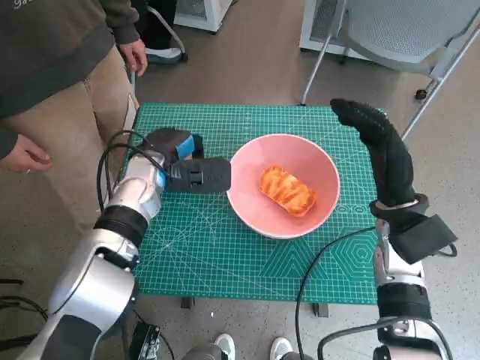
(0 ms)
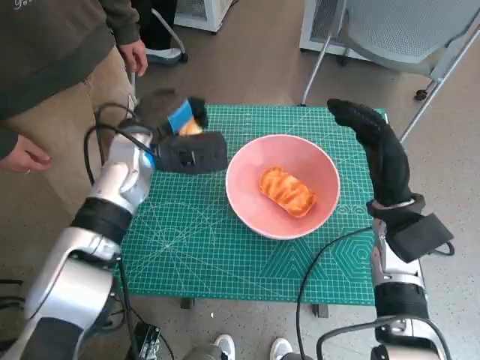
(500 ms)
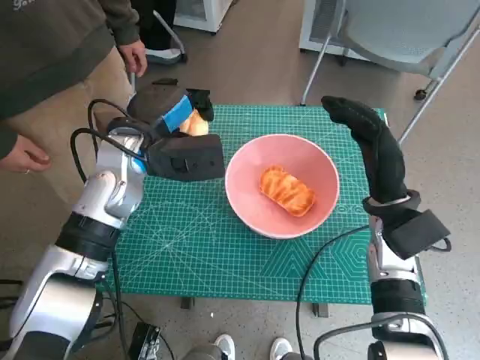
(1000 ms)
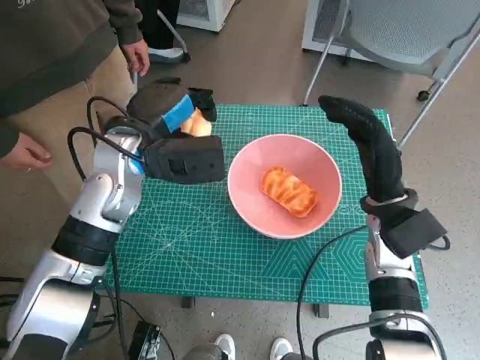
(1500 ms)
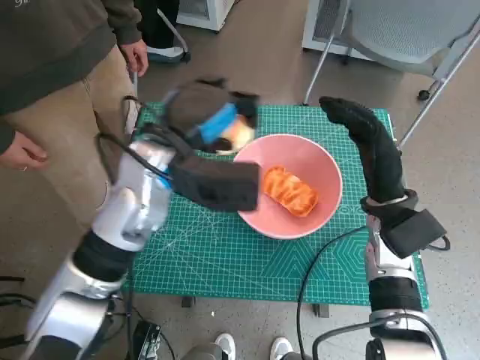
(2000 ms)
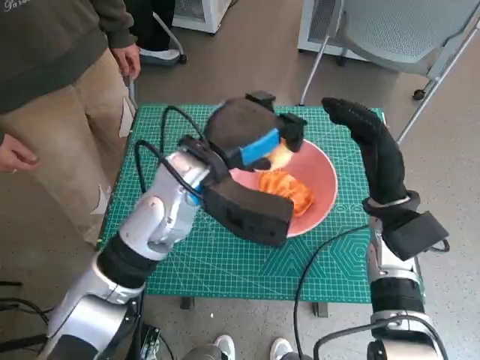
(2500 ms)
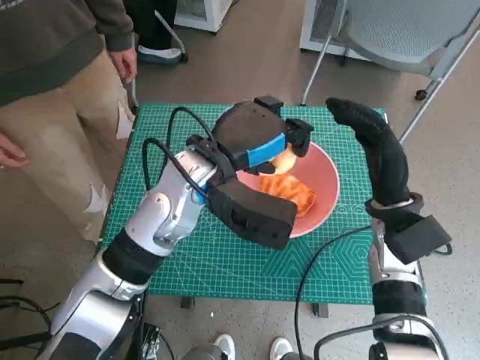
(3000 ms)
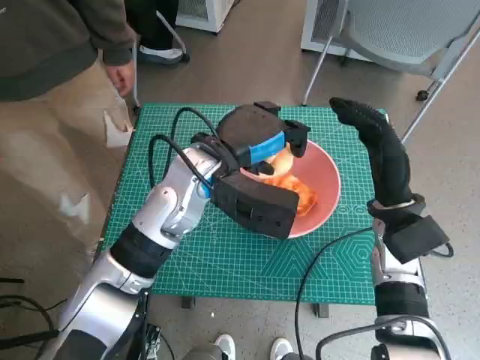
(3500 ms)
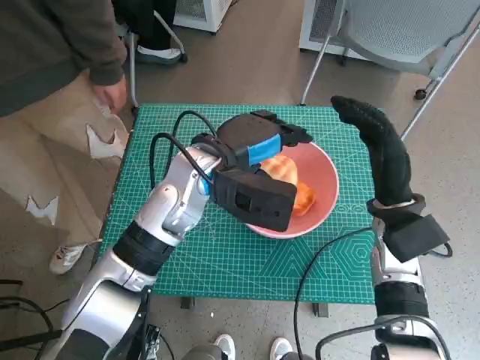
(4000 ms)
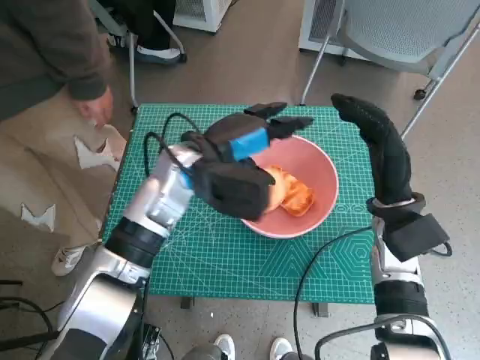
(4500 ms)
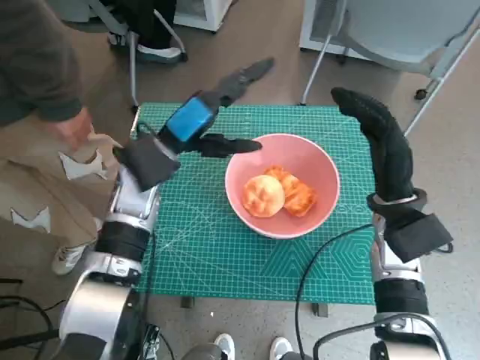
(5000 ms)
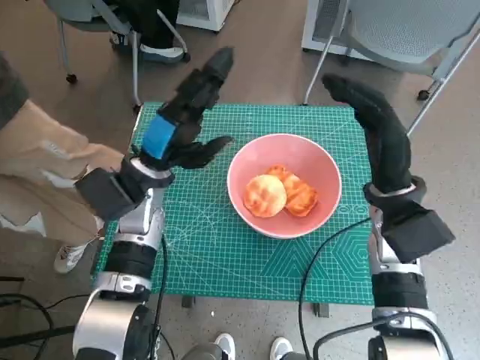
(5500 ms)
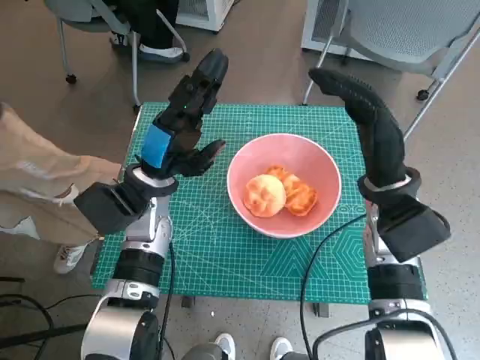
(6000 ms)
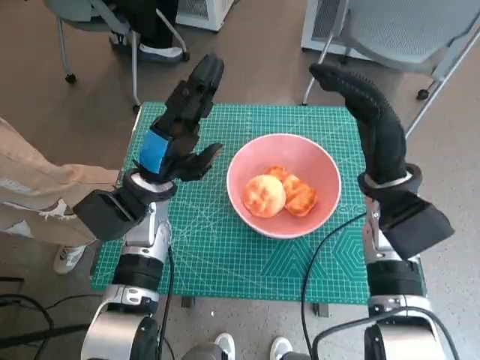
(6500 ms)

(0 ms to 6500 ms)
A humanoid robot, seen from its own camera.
Step, 0 ms - 4000 ms: Place the round bread in pink bowl with left hand.
0 ms - 2000 ms: The left hand goes about 10 cm upward.
2000 ms - 4500 ms: The left hand shifts by some 5 cm.
4500 ms - 6500 ms: The left hand is displaced to the left and downward by some 10 cm.

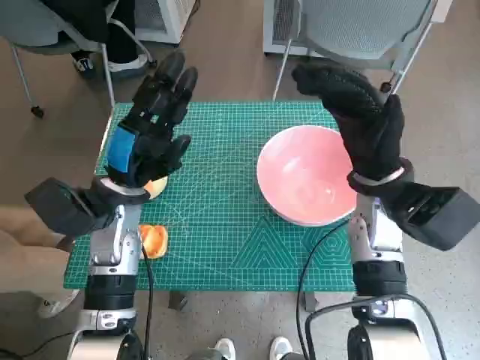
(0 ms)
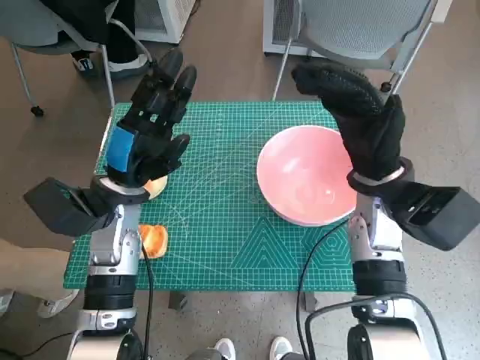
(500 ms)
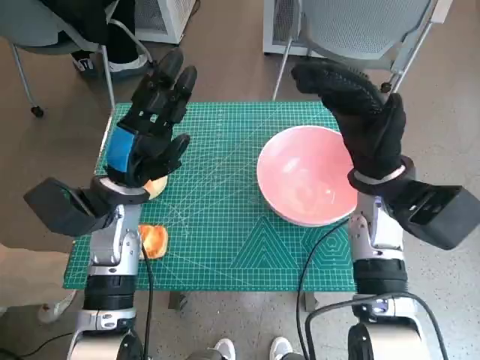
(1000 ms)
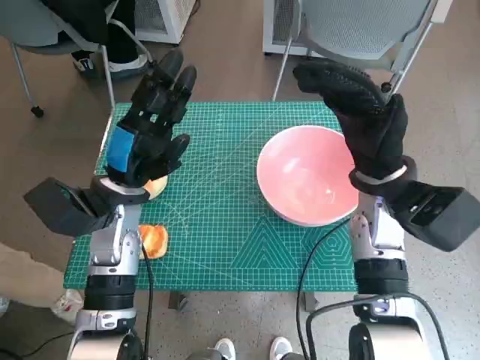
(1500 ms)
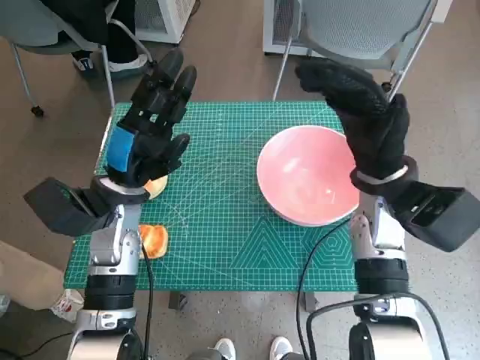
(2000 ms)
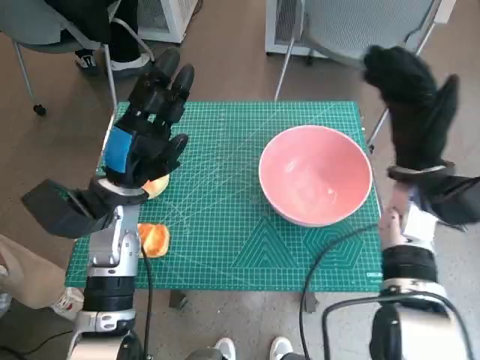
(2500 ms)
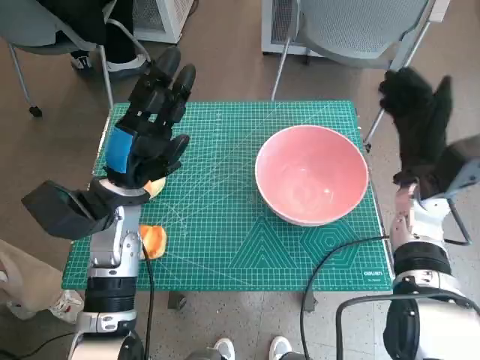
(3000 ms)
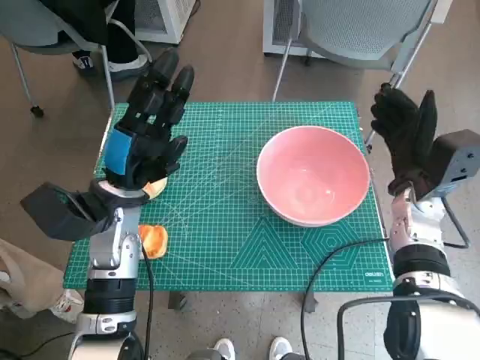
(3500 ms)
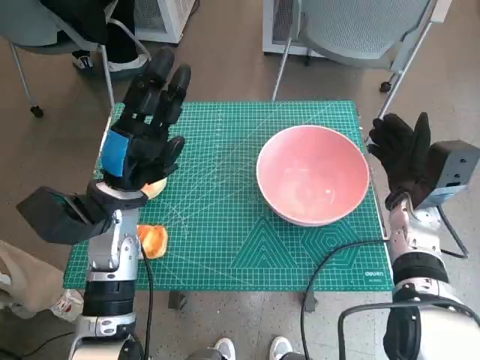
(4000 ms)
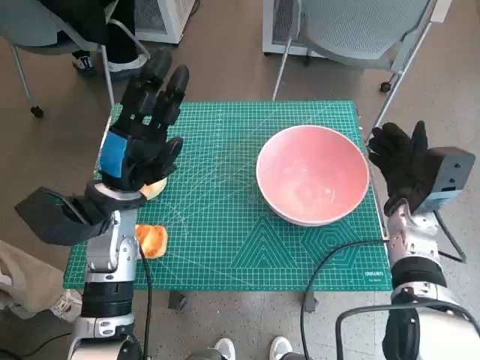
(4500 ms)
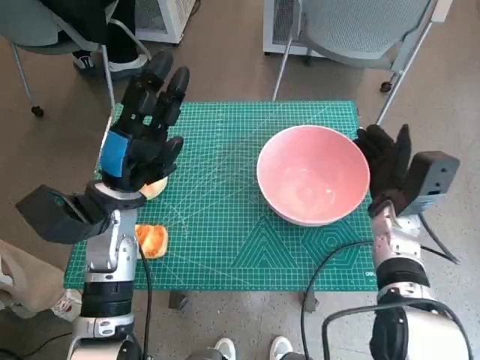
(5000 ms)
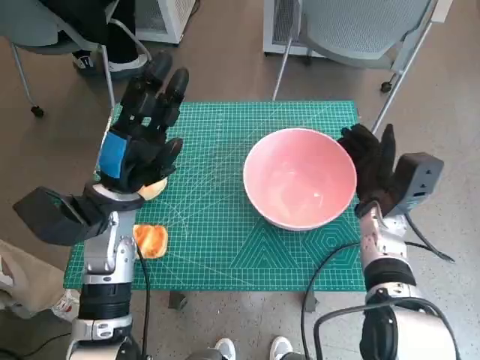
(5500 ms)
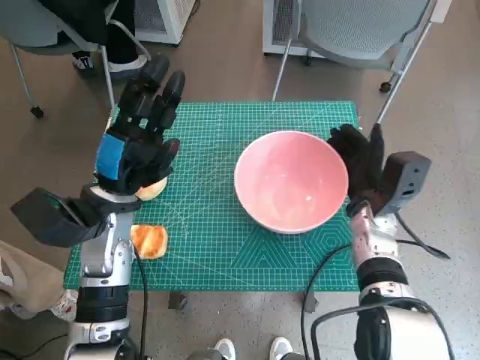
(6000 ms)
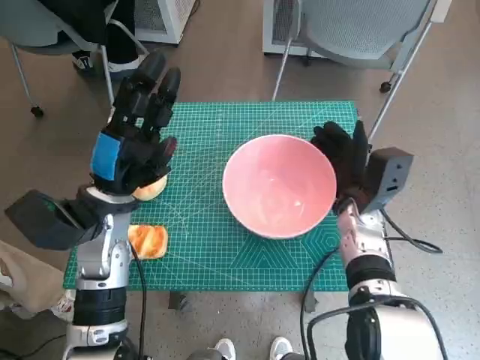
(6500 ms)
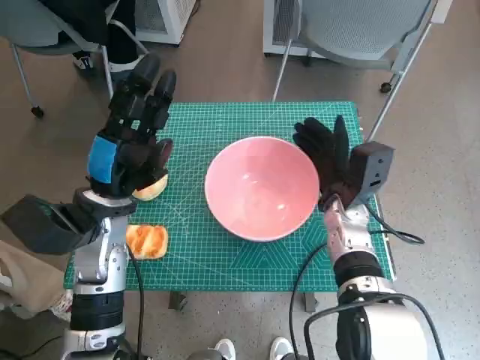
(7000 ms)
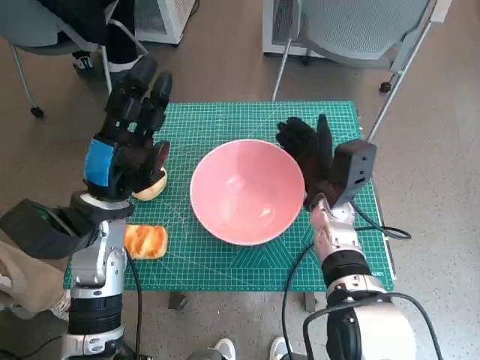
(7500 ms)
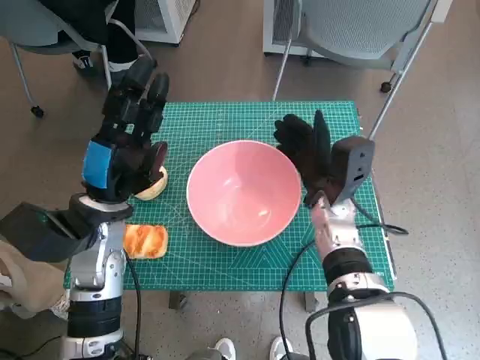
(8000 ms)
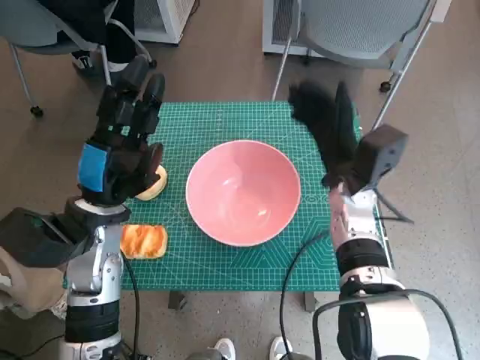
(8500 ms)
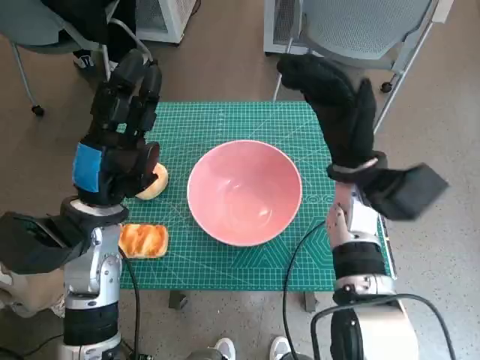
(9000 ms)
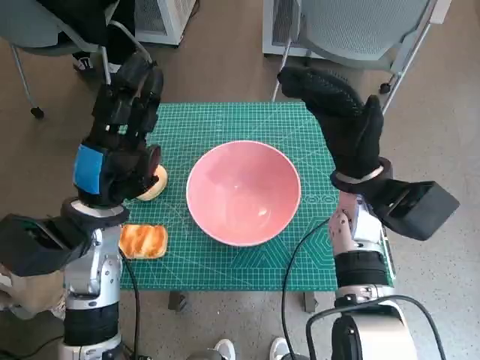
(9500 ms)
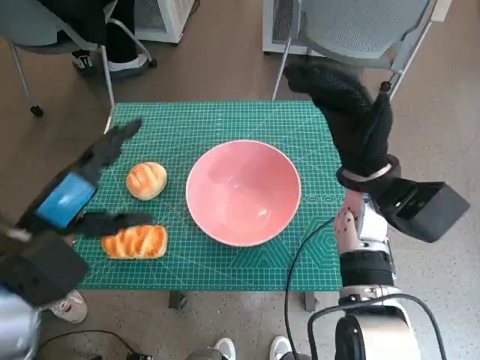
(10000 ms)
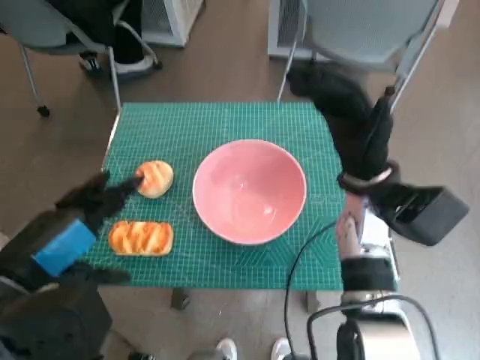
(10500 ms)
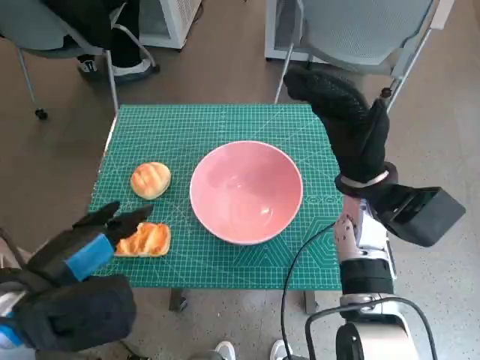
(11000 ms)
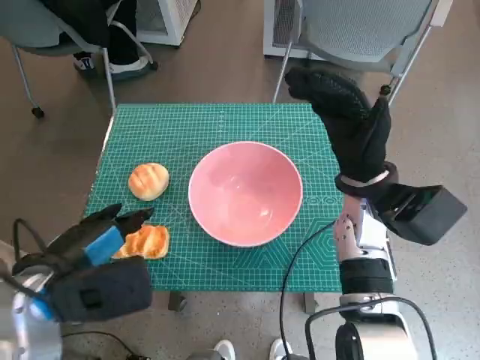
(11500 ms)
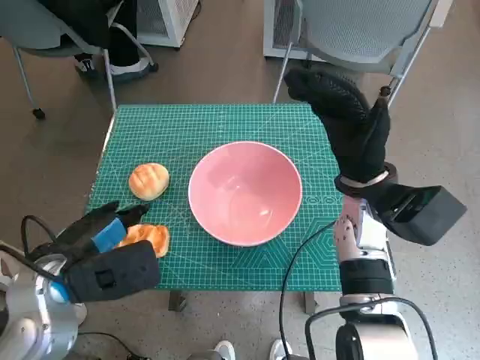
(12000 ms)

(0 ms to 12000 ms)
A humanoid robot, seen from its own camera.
Step, 0 ms - 8000 ms: Move the pink bowl to the center of table with right hand.
2000 ms - 4000 ms: The right hand goes roughly 10 cm downward and to the right.
4000 ms - 6000 ms: The right hand heads to the left, covering some 5 cm.
6000 ms - 8000 ms: The right hand goes approximately 5 cm to the left.
8000 ms - 10000 ms: The left hand shifts roughly 10 cm backward and upward; the right hand travels upward by about 10 cm.

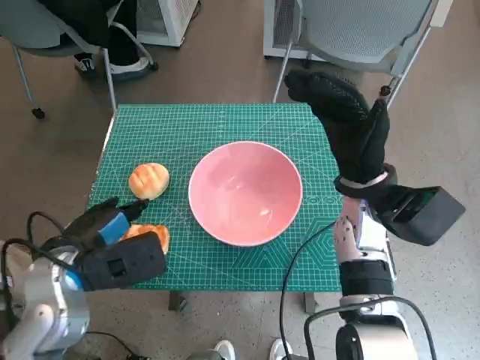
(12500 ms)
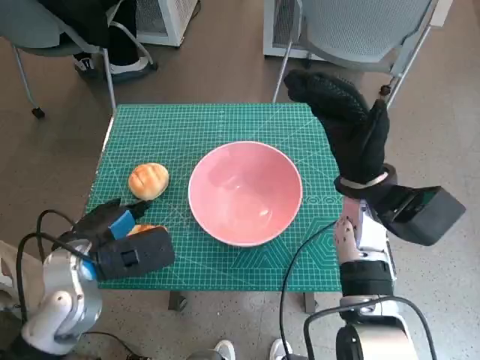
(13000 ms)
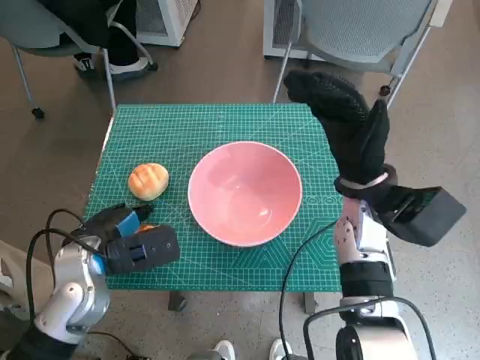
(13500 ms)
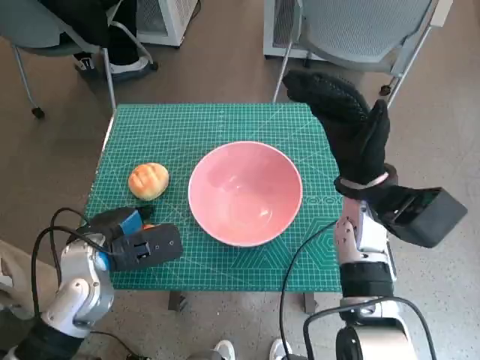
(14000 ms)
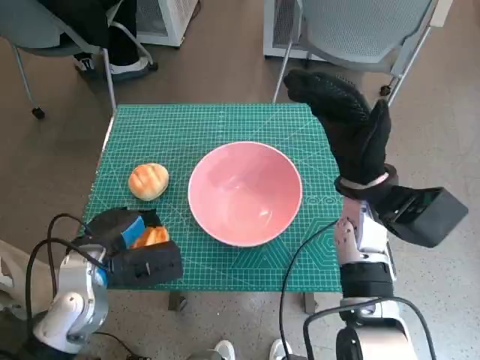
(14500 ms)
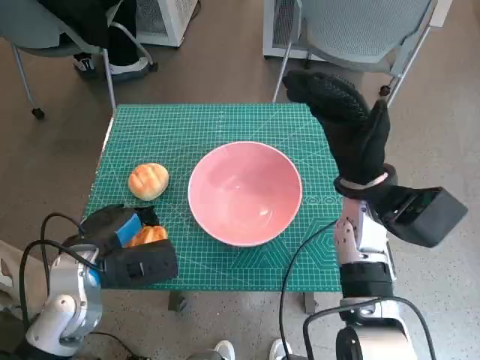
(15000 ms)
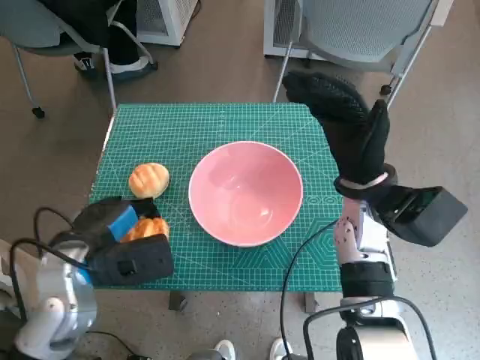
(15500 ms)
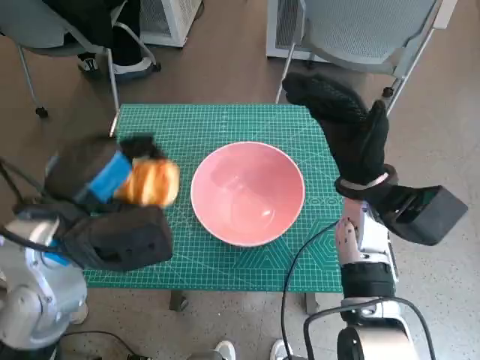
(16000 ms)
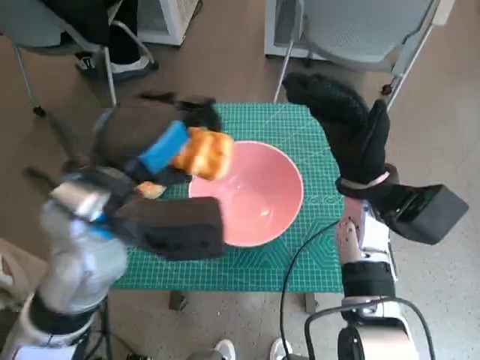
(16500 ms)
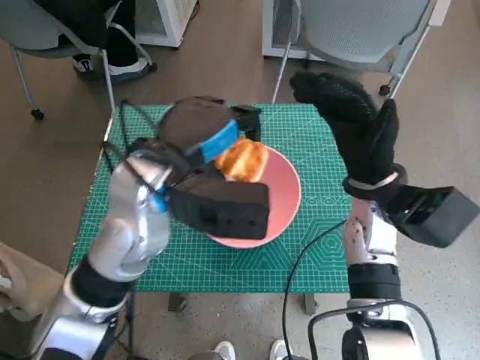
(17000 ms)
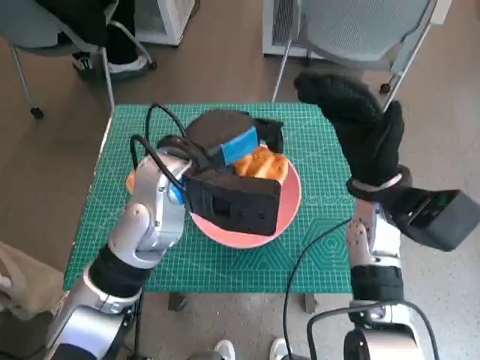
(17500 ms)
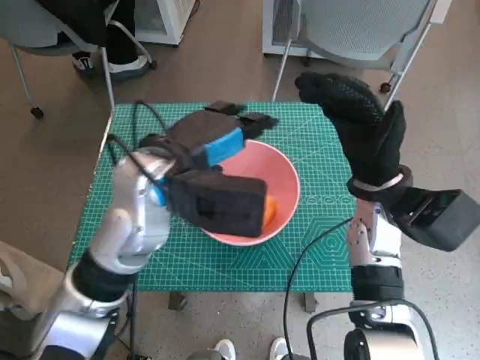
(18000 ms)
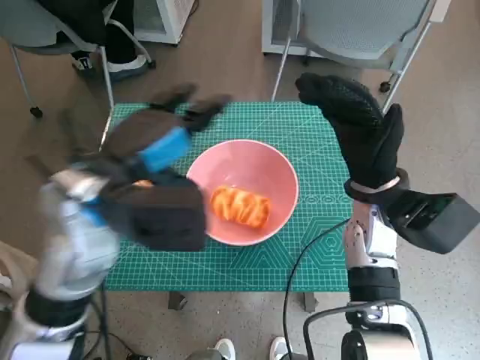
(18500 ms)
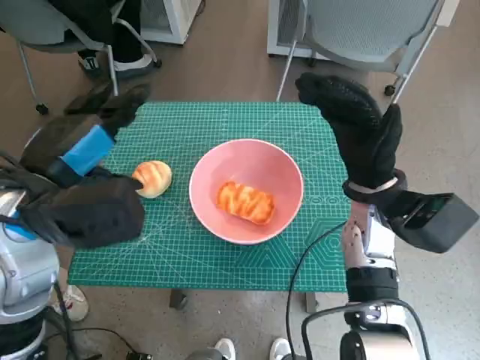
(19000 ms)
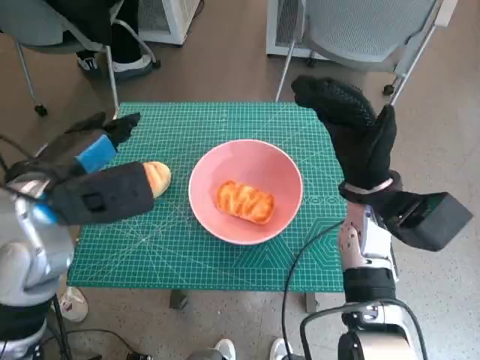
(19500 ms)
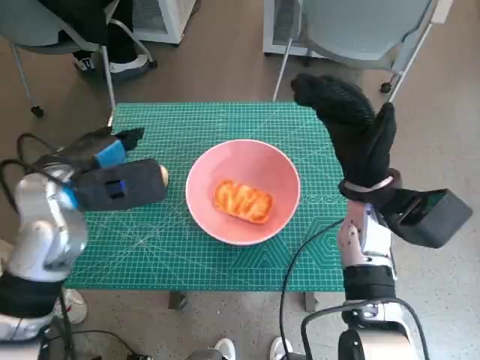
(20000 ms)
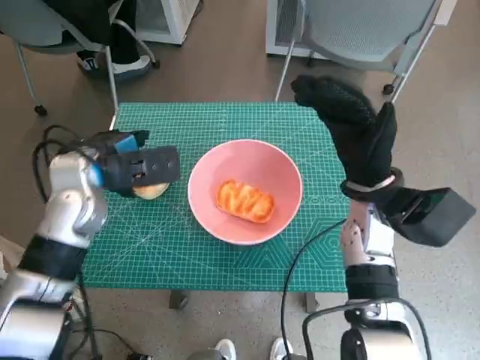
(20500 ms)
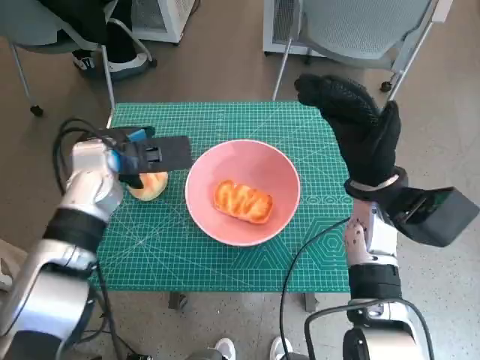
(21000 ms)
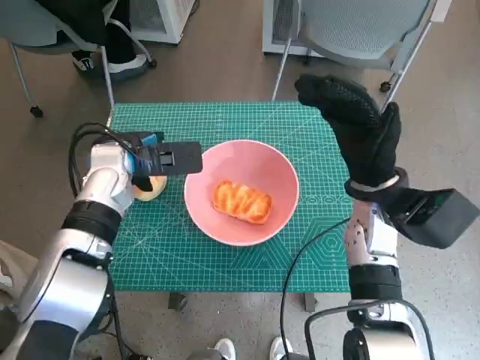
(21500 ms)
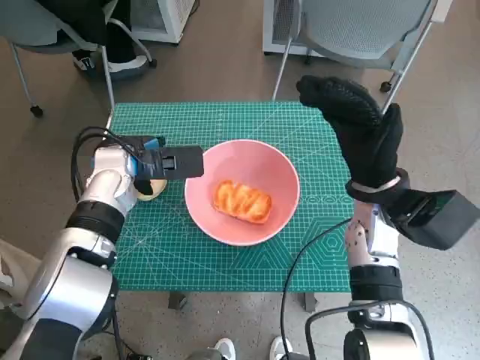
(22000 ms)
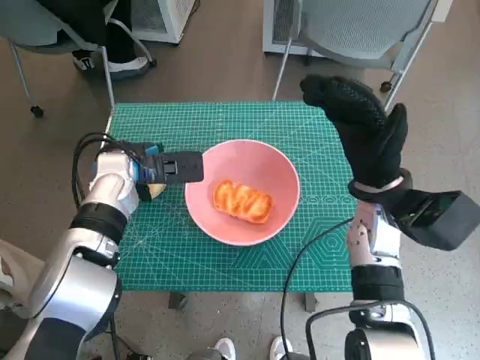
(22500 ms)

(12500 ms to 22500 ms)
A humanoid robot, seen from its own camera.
Step, 14500 ms - 18000 ms: Place the long bread in pink bowl with left hand.
12500 ms - 14500 ms: There are only small adjustments of the hands.
14500 ms - 16500 ms: The left hand is displaced upward and to the right by about 15 cm.
18500 ms - 20500 ms: The left hand travels to the left, forward and downward by some 10 cm.
20500 ms - 22500 ms: The left hand shifts by approximately 5 cm.
